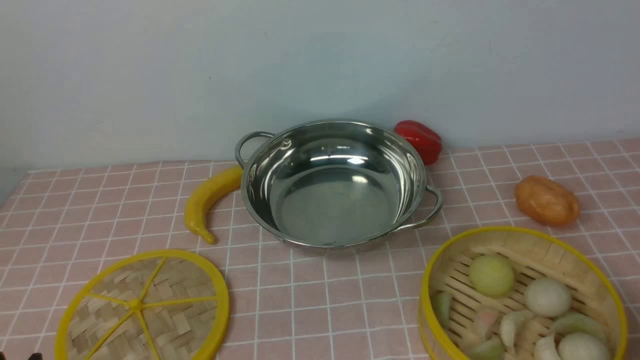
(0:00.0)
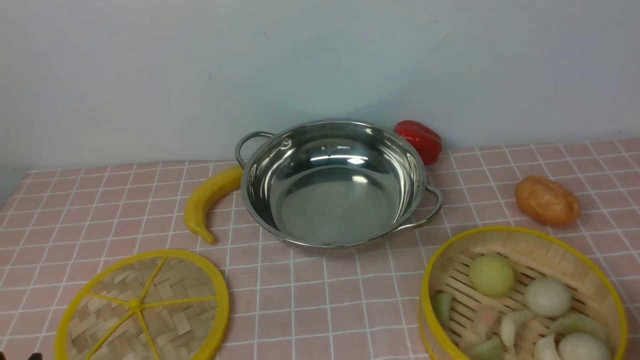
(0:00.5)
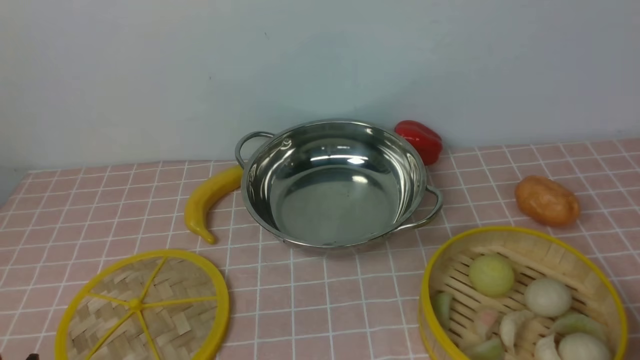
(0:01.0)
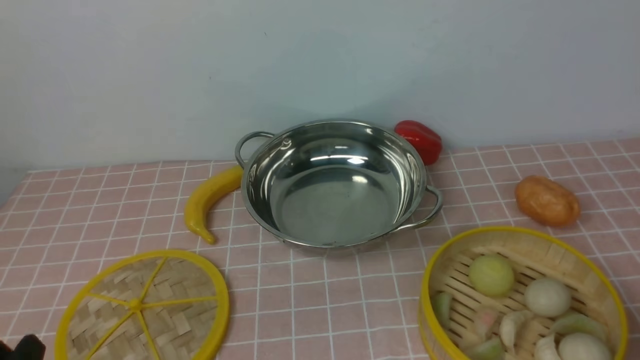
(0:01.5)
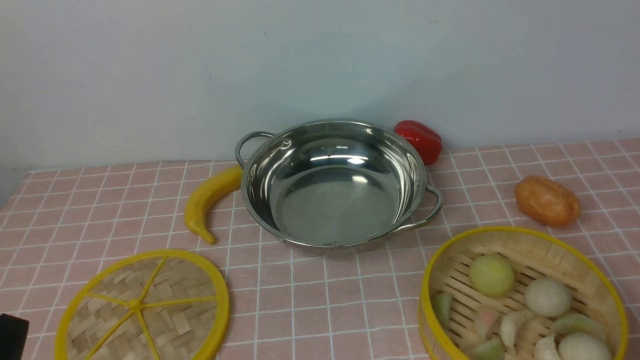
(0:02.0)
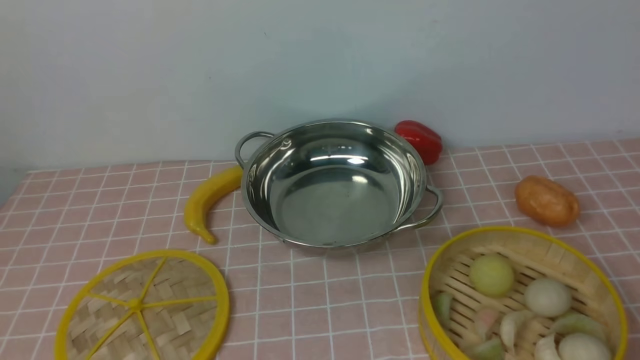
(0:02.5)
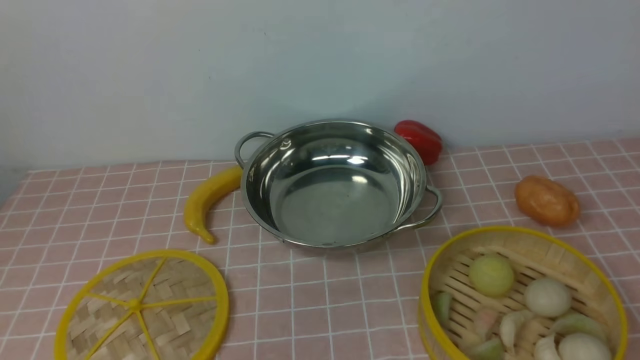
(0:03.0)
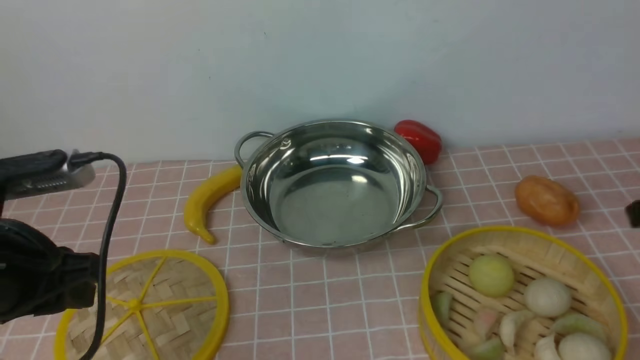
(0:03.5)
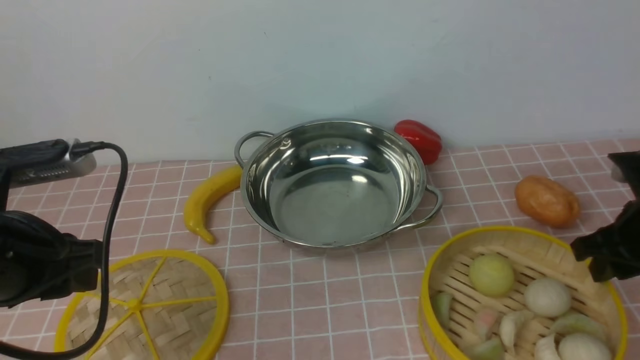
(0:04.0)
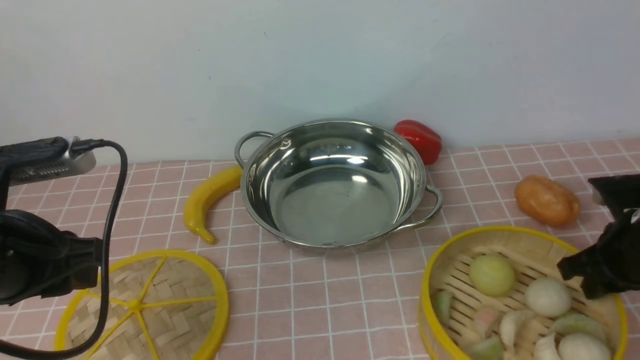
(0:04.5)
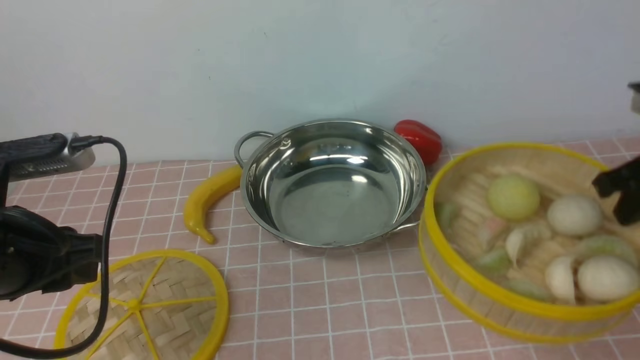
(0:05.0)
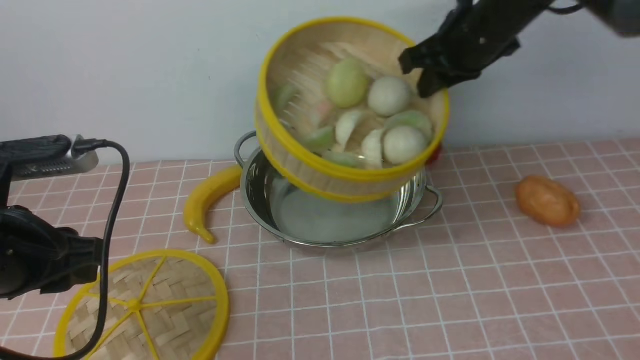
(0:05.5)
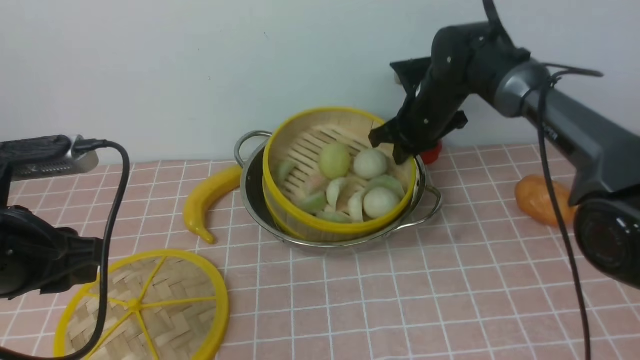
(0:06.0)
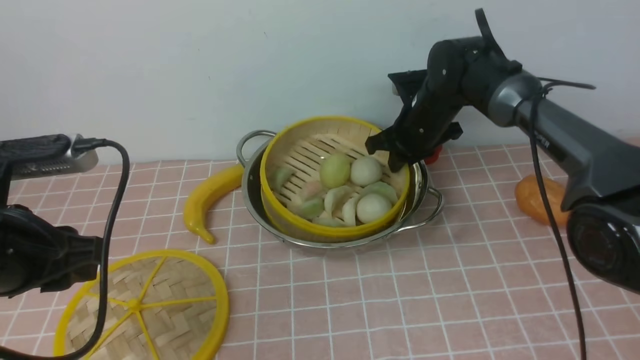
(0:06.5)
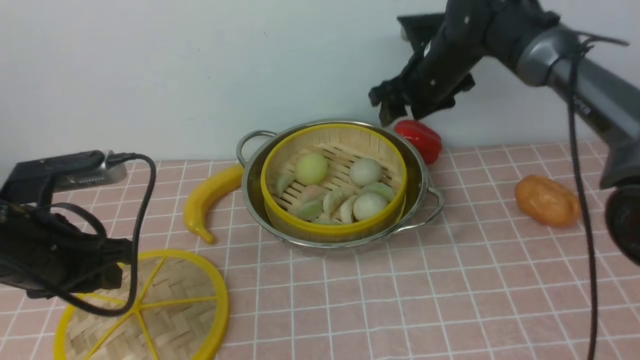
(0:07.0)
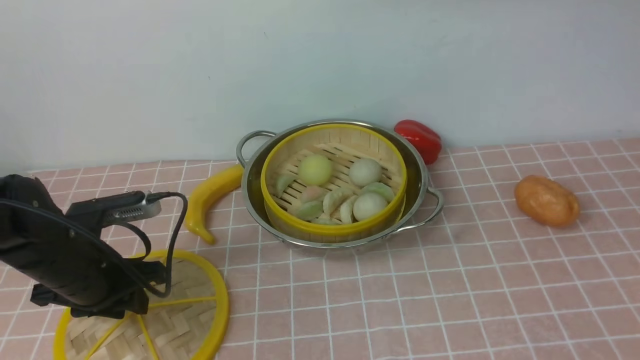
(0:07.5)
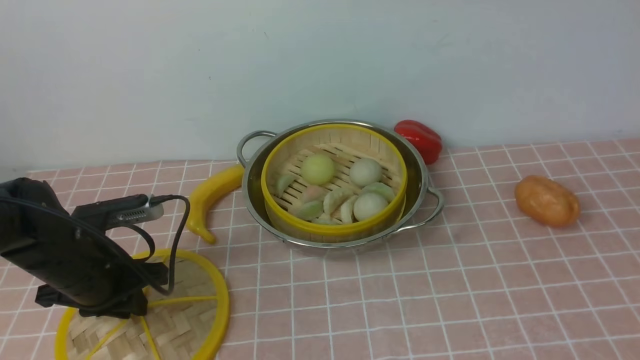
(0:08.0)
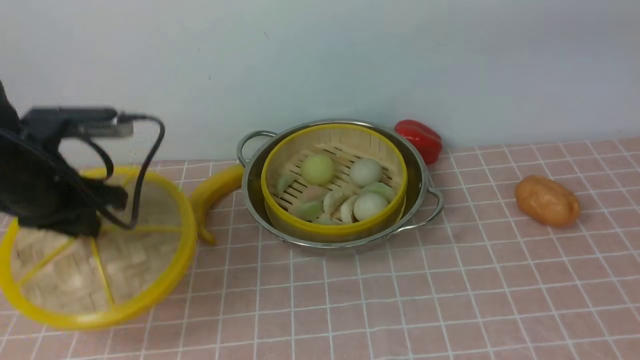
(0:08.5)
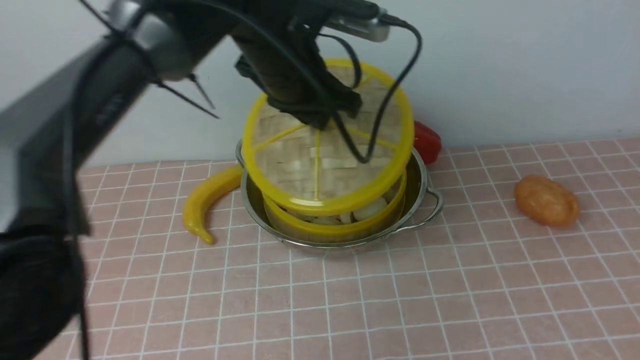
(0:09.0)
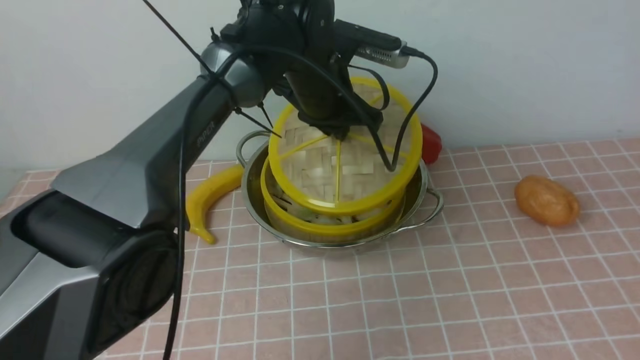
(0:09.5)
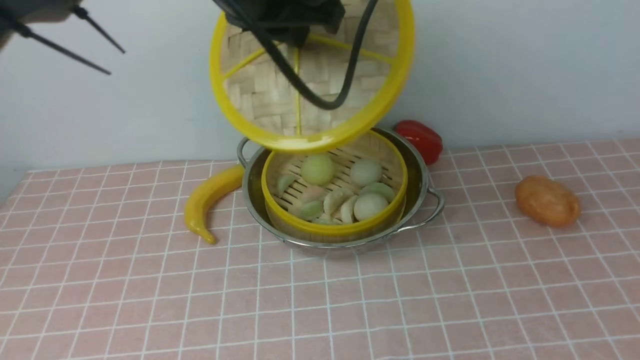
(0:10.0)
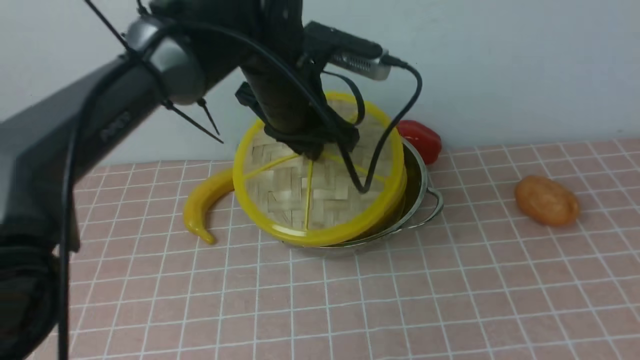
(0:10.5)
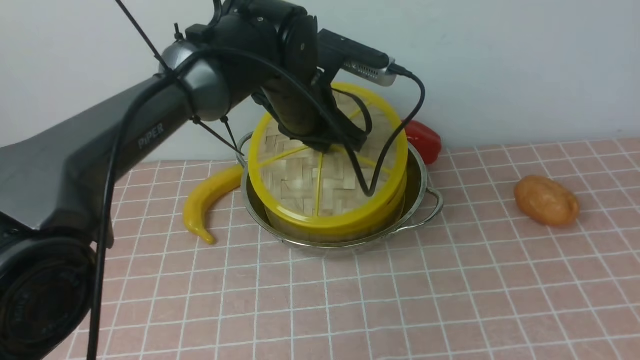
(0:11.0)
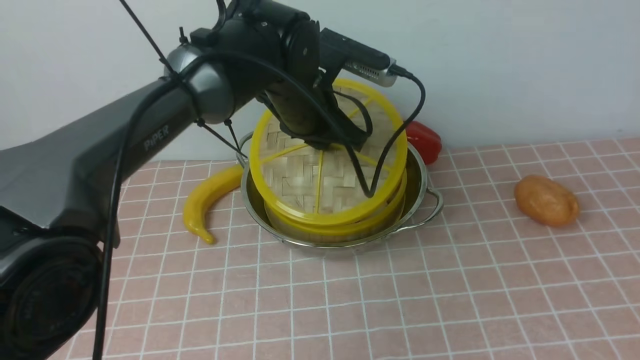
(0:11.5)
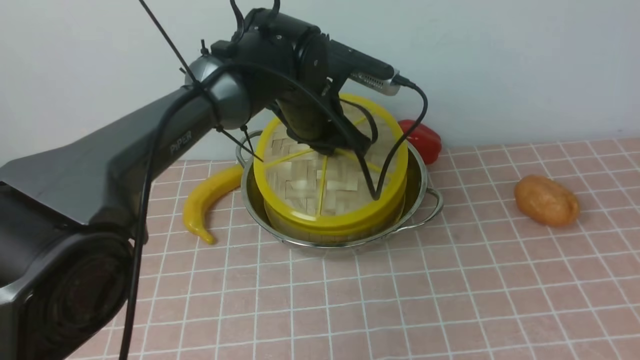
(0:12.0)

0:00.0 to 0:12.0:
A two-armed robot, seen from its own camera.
Task of the whole recording: place the steamer in the pot on the pink tablecloth, and put the lid on the steamer.
Step, 0:00.0 to 0:04.5: use the right arm to lift the steamer closest to it.
Step, 0:05.0 to 0:06.5: use the right arm to put the steamer into the iron steamer pot in the middle.
Step, 0:07.0 to 0:08.0: use the left arm to lift the lid of the steamer.
0:02.0 to 0:04.0: The right gripper moves forward, roughly 25 cm. Meanwhile the left gripper travels forward and upward by some 15 cm.
0:04.0 to 0:06.0: The right gripper heads forward and to the left, covering approximately 30 cm, and closes.
0:06.0 to 0:08.0: The right gripper is displaced upward and backward by approximately 40 cm, and opens its fingers. Meanwhile the left gripper travels downward and forward by approximately 15 cm.
0:08.0 to 0:10.0: The left gripper heads upward and to the right, covering approximately 30 cm. Meanwhile the right gripper heads backward, to the right and downward, covering some 30 cm.
0:10.0 to 0:12.0: The left gripper moves downward and forward, approximately 15 cm.

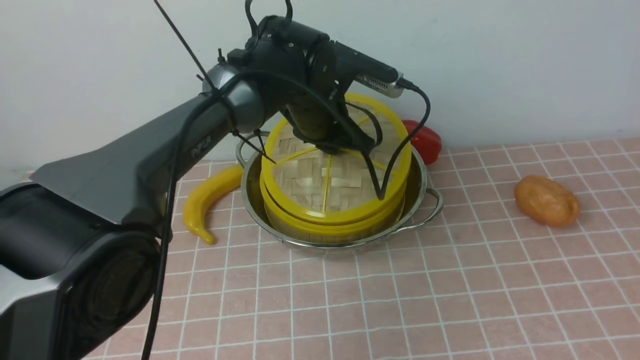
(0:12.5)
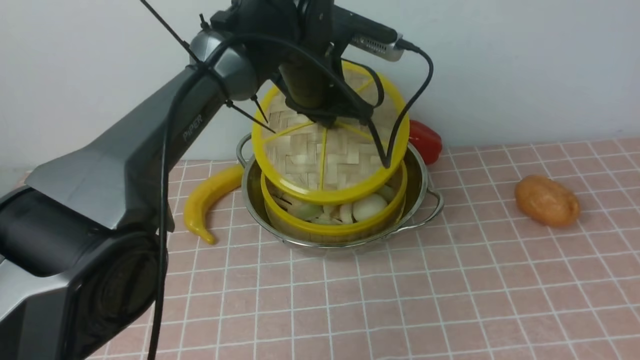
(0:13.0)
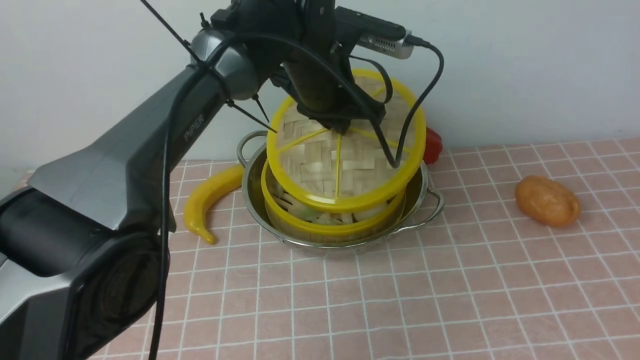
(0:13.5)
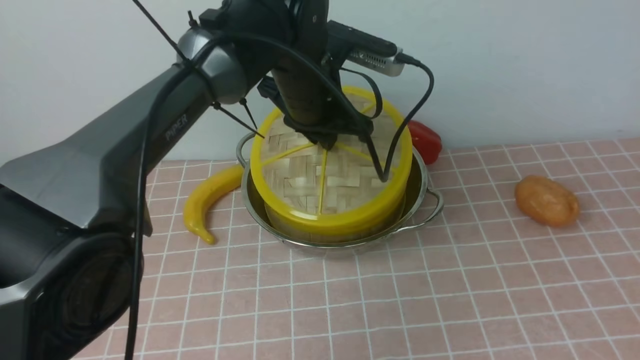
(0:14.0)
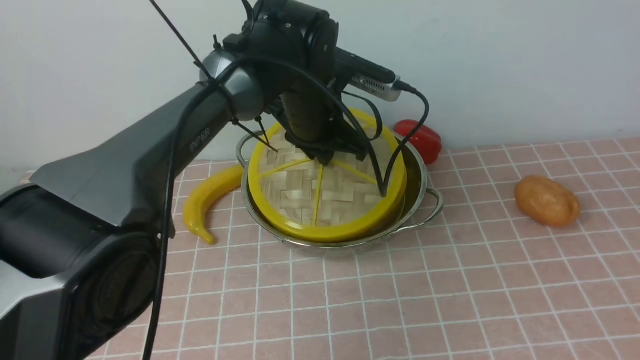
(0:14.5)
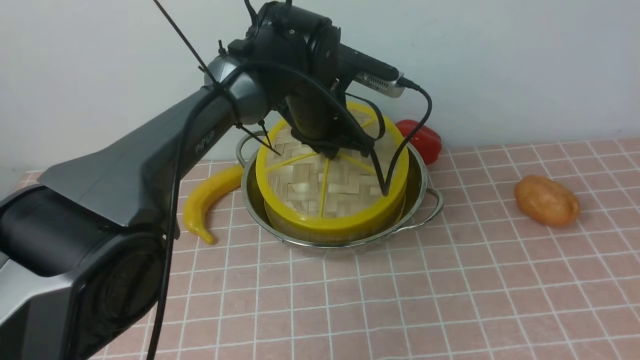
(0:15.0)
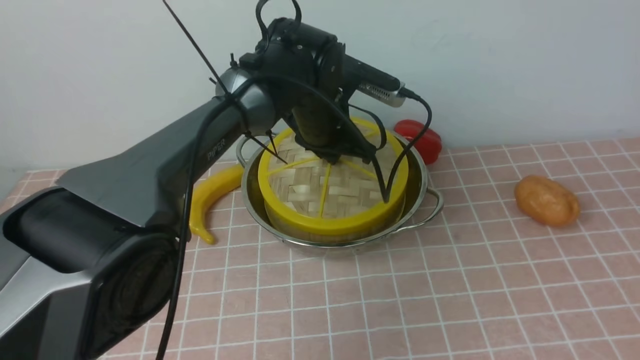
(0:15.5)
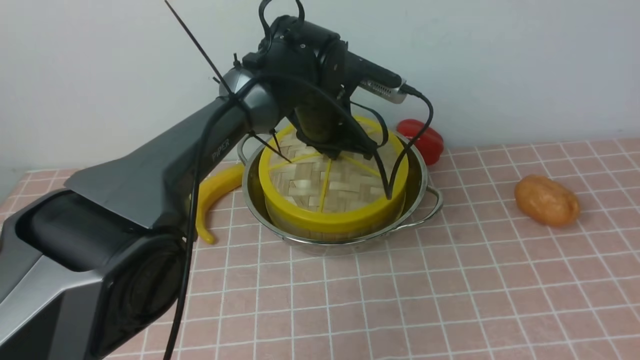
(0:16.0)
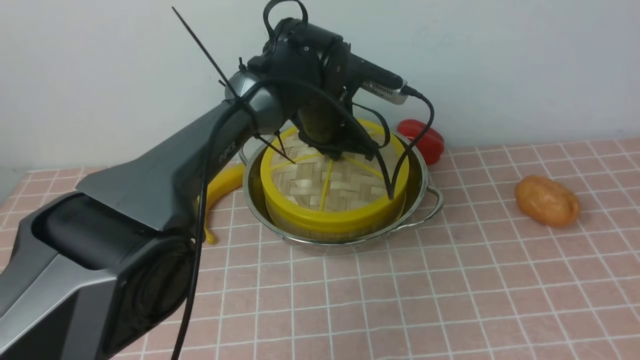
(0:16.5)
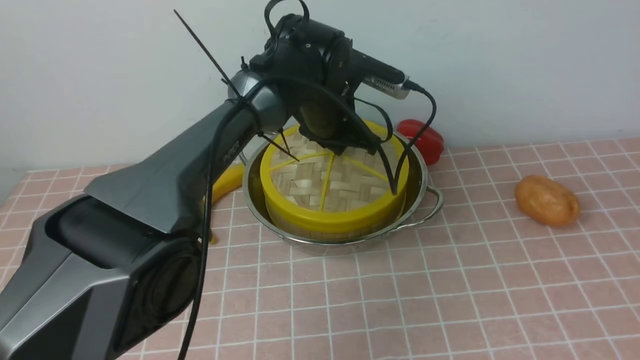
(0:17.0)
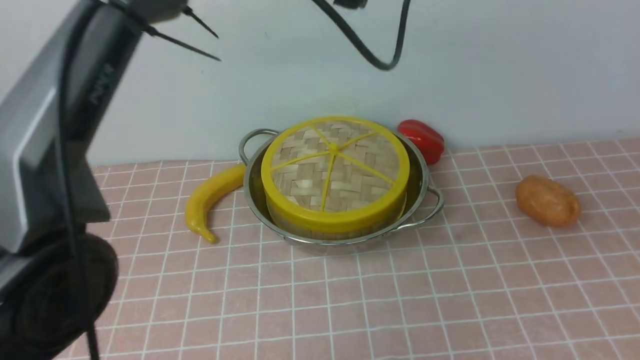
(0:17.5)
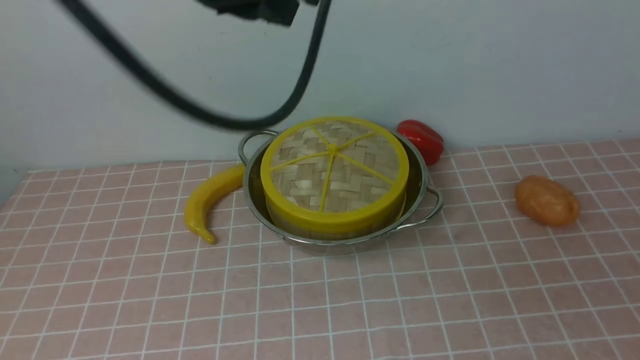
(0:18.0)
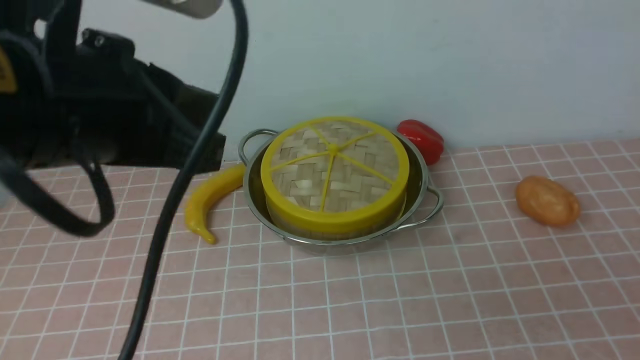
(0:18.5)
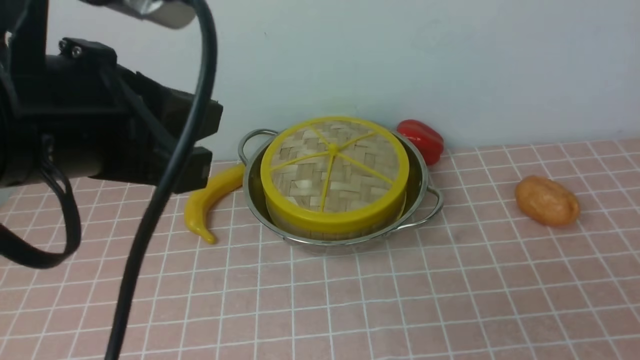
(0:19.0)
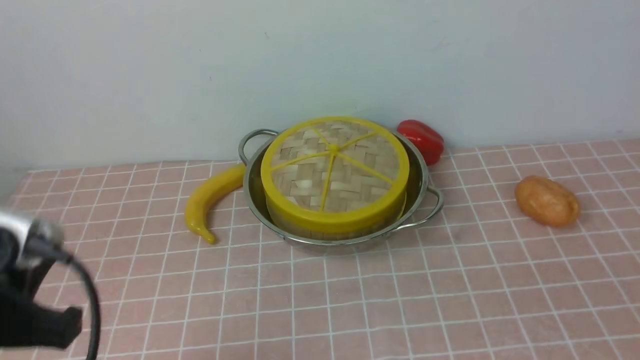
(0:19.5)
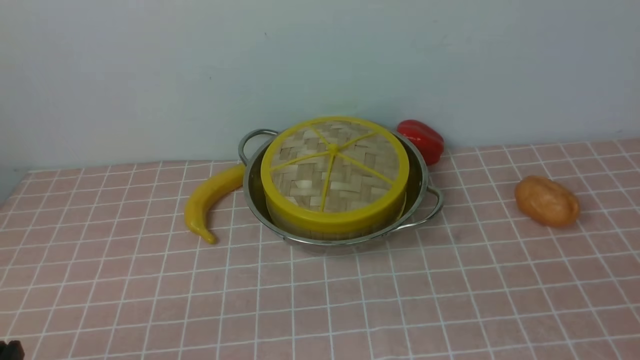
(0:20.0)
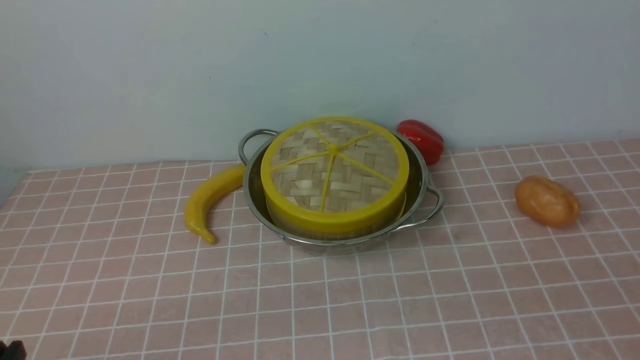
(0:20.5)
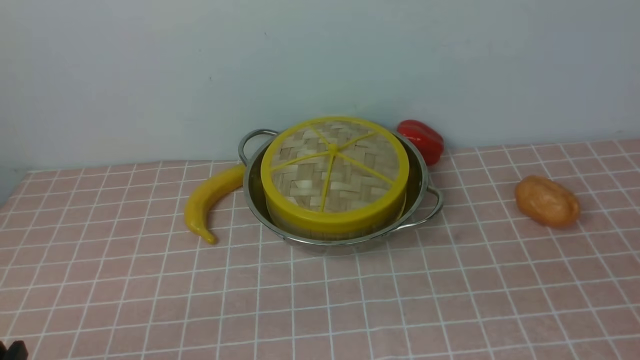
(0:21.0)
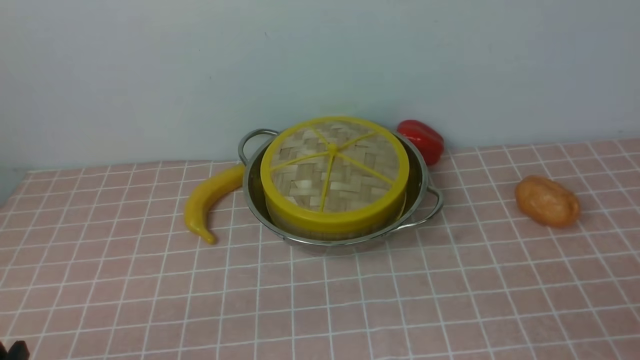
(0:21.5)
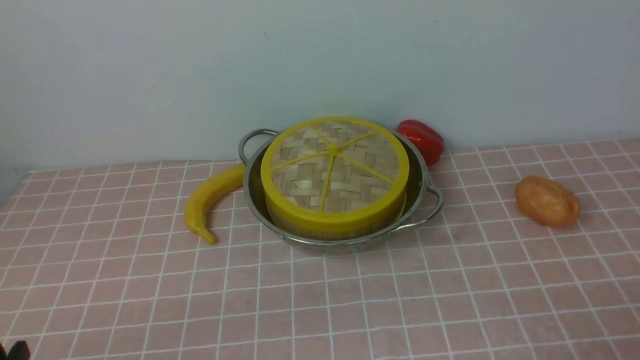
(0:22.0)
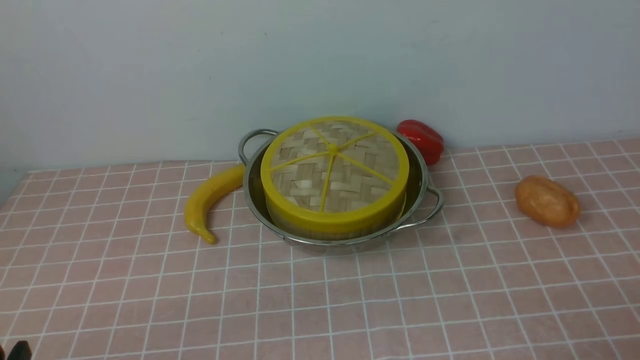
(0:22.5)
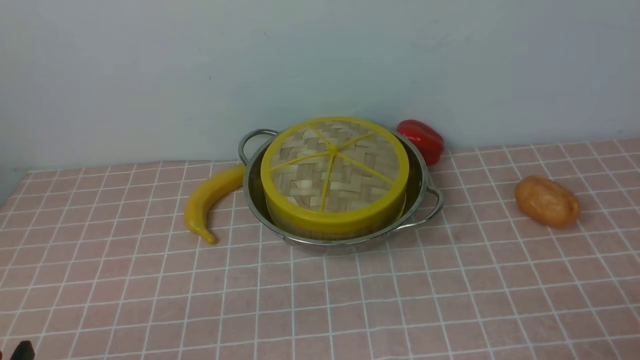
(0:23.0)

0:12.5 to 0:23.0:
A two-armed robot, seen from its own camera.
Task of the whole recording: place the steamer in the pot on the pink tablecloth, and put the lid on the steamer.
Step, 0:12.5 to 0:17.0: use the left arm to place the steamer lid on the steamer.
0:12.5 to 0:14.5: The grippers stay close to where they were, moving slightly.
0:16.5 to 0:19.0: The right gripper is displaced downward and backward by some 15 cm, and closes. The left gripper moves backward, upward and to the left, some 35 cm, and opens, then closes again.
0:19.0 to 0:21.0: The left gripper heads downward, backward and to the left, covering about 25 cm.
